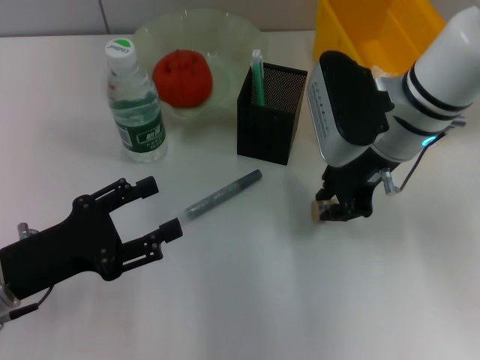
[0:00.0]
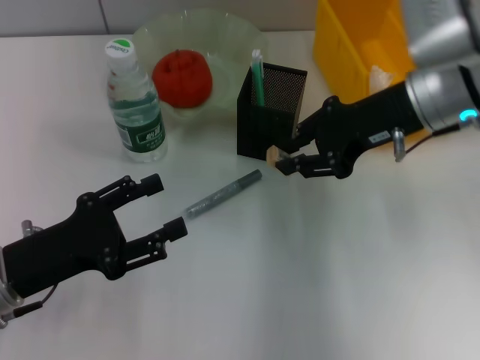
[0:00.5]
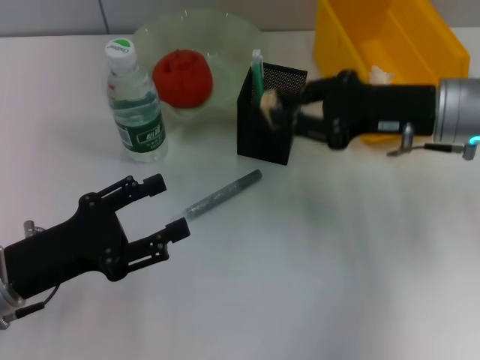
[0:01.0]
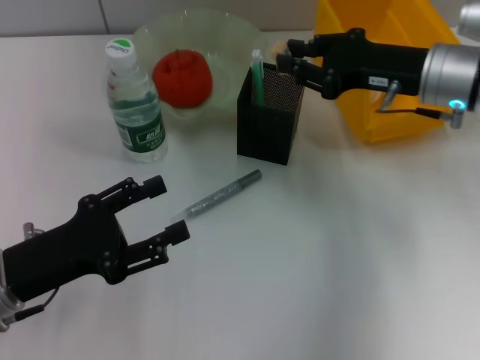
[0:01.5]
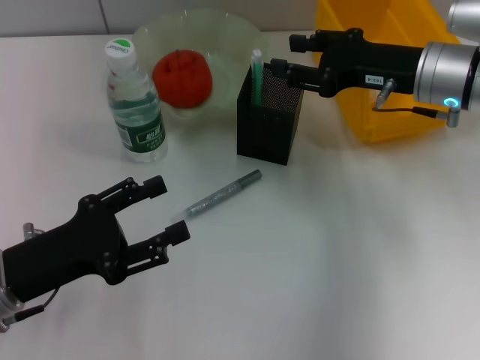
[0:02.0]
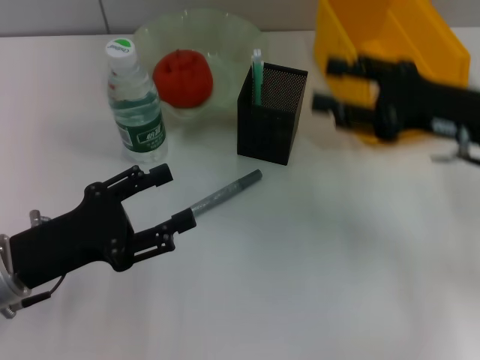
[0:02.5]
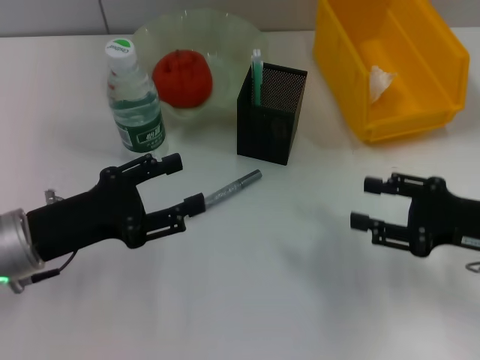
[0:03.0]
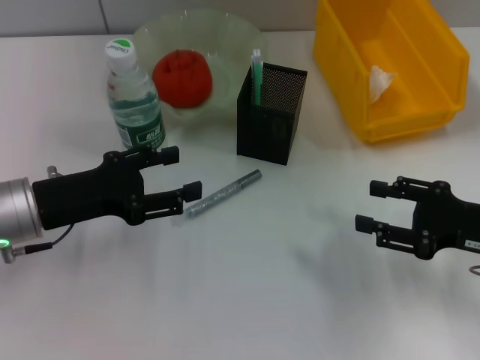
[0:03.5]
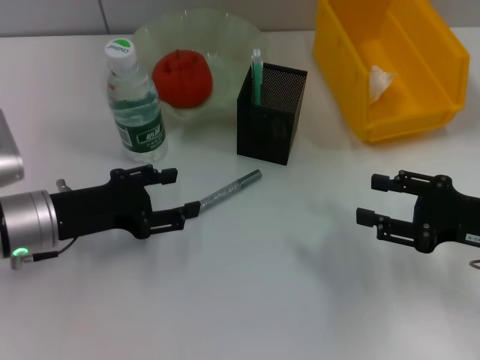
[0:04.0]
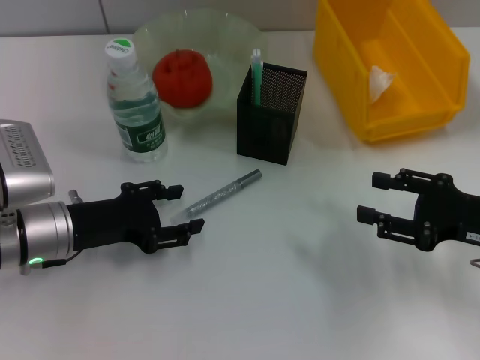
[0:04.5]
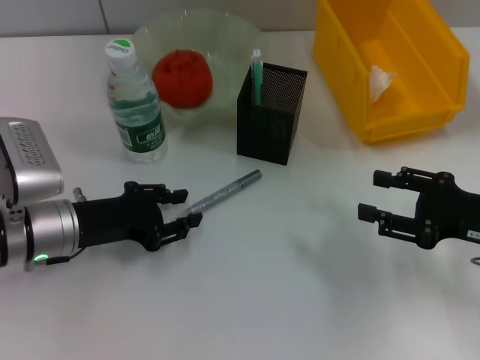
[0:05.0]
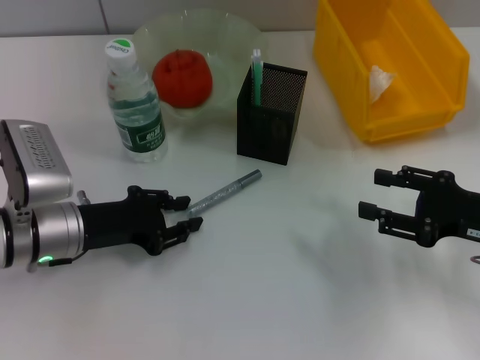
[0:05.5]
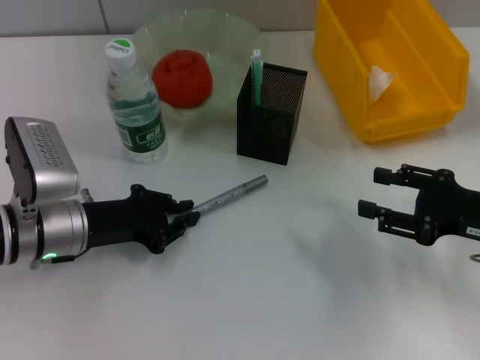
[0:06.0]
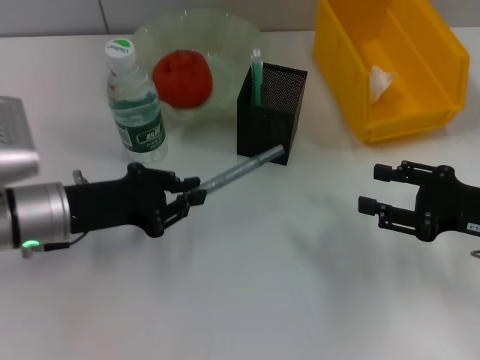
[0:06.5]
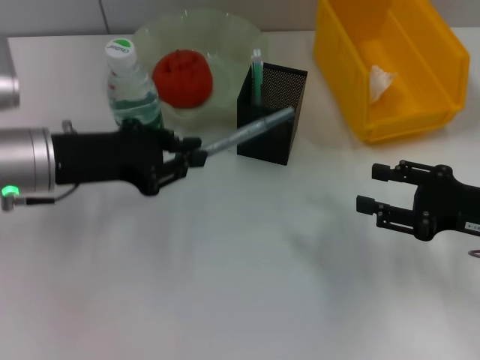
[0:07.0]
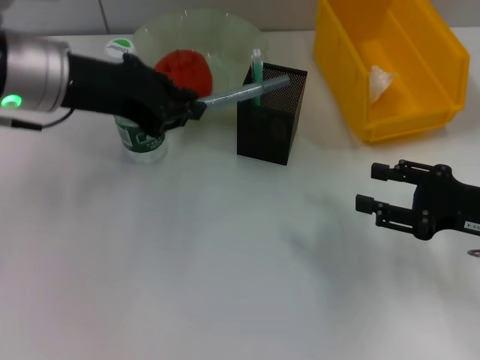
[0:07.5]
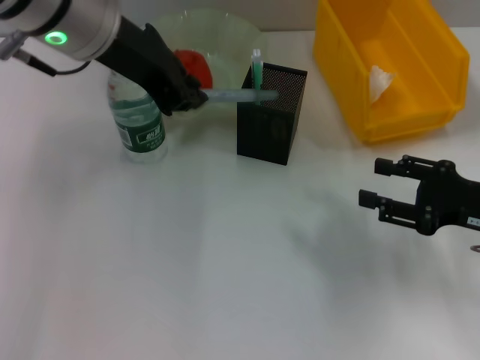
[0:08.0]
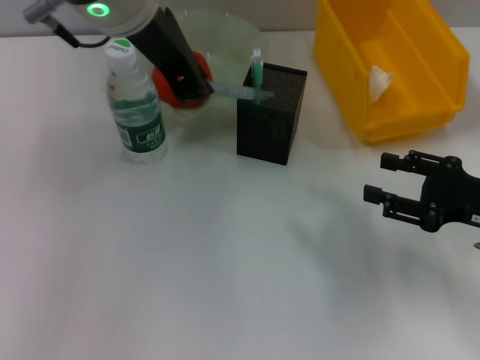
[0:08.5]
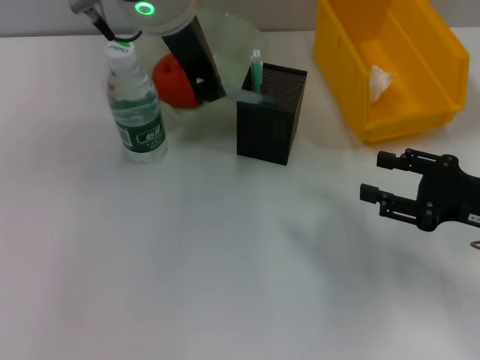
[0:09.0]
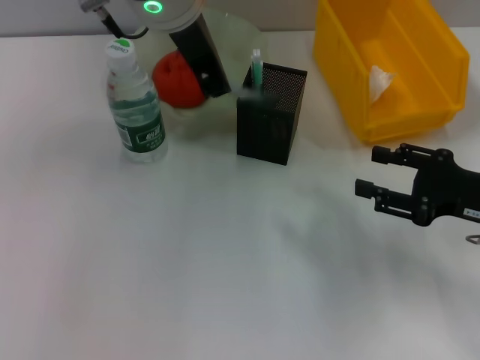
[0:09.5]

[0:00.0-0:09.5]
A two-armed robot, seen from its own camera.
Step, 0:00.0 to 0:02.0: Put the eraser into the pen holder with the right hand.
Step, 0:02.5 to 0:05.5: Grab the gray glue with the left hand.
0:00.0 to 0:02.0: The right gripper is displaced to the right by roughly 5 cm.
0:02.0 to 0:04.0: The right gripper heads backward, to the right and downward, covering approximately 20 cm, and opens up. The left gripper travels forward by approximately 10 cm.
0:04.0 to 0:05.5: The left gripper closes.
0:05.5 to 0:07.5: The left gripper goes about 15 cm upward.
0:07.5 to 0:09.5: The left gripper moves to the right and upward, some 15 cm.

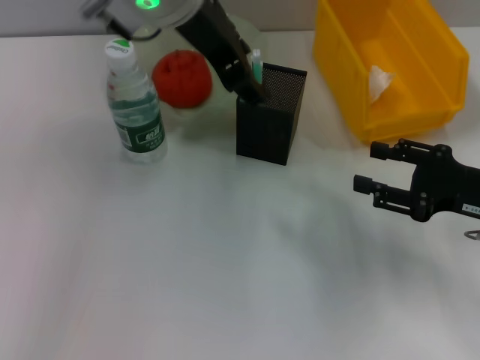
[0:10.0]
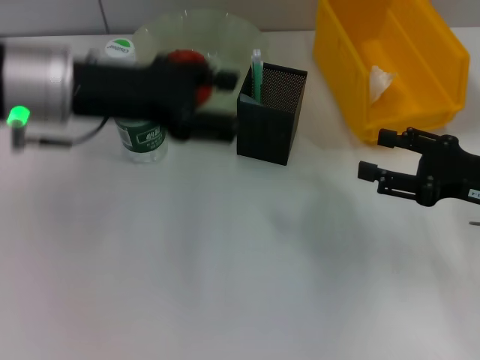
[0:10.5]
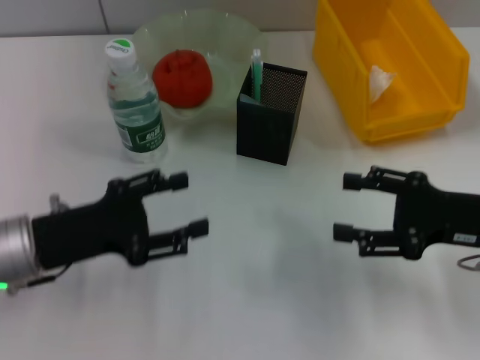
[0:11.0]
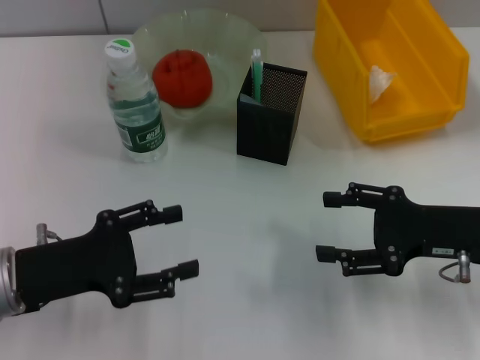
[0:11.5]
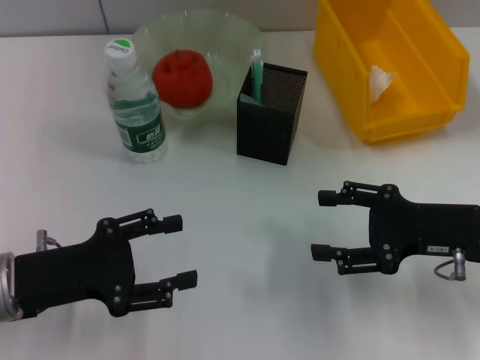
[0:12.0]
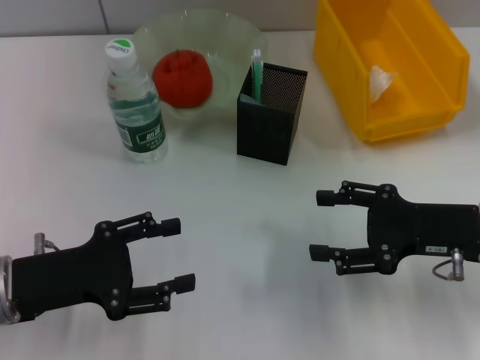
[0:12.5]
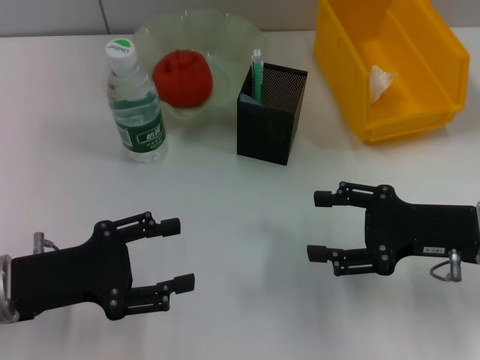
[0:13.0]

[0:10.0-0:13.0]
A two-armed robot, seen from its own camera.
0:10.0 to 0:11.5: The left gripper is displaced downward, to the left and backward by roughly 30 cm, and opens up.
0:11.5 to 0:13.0: Neither gripper changes place.

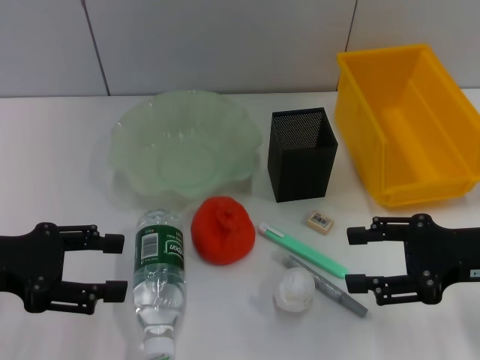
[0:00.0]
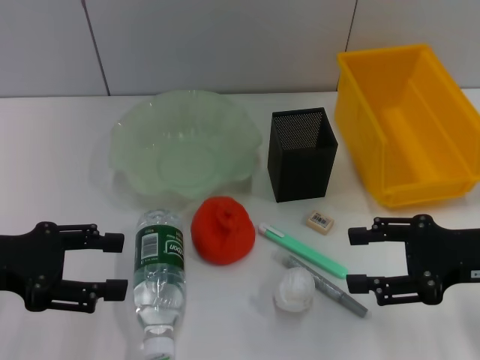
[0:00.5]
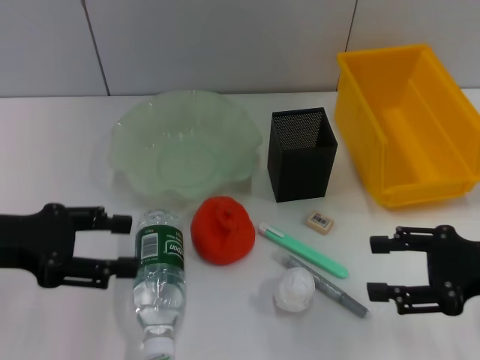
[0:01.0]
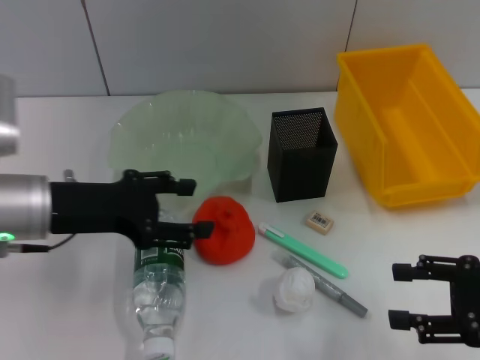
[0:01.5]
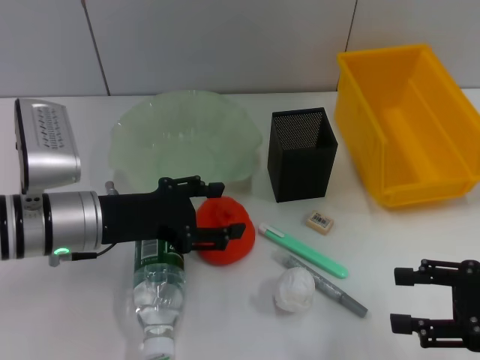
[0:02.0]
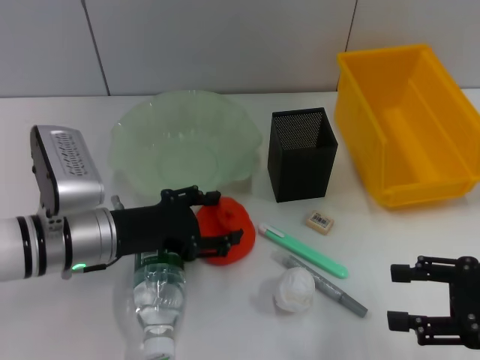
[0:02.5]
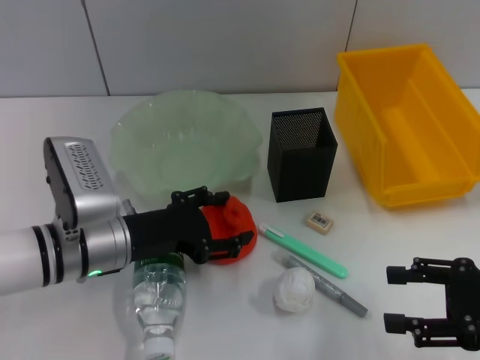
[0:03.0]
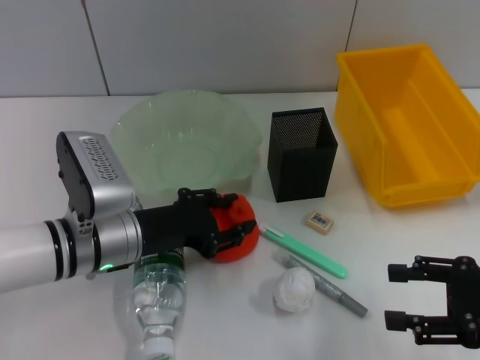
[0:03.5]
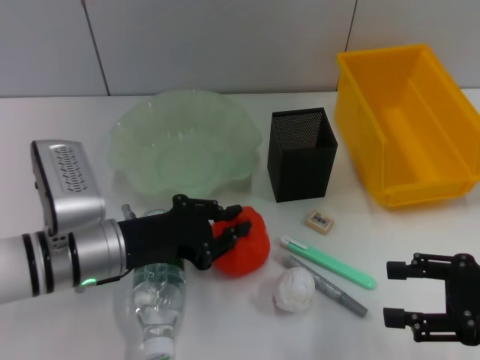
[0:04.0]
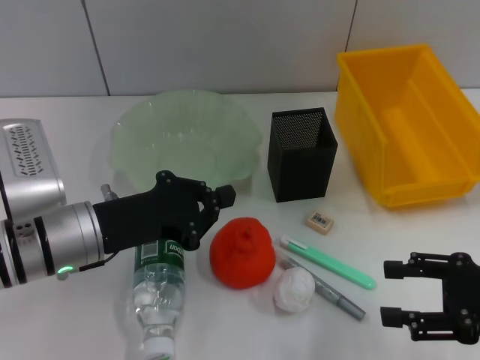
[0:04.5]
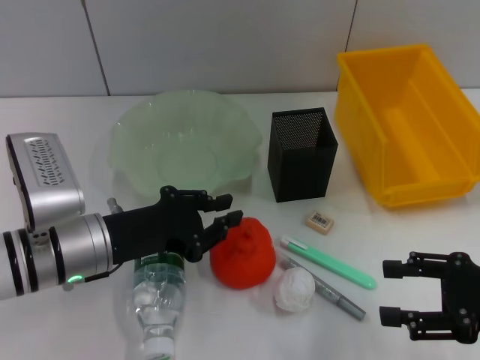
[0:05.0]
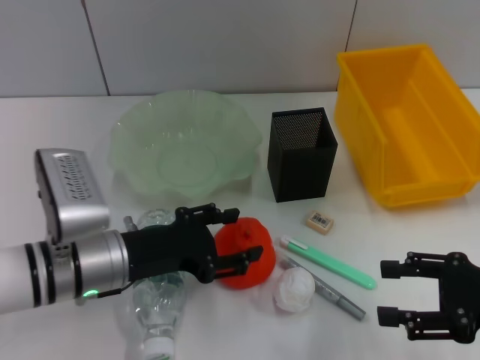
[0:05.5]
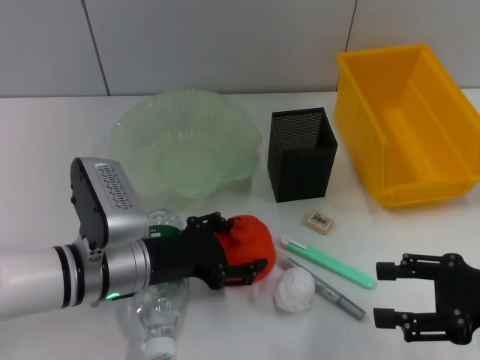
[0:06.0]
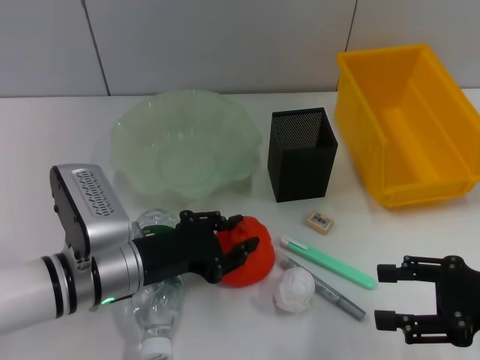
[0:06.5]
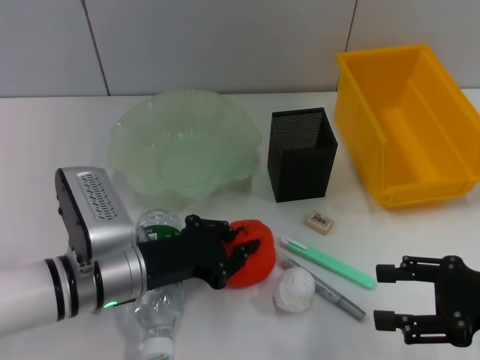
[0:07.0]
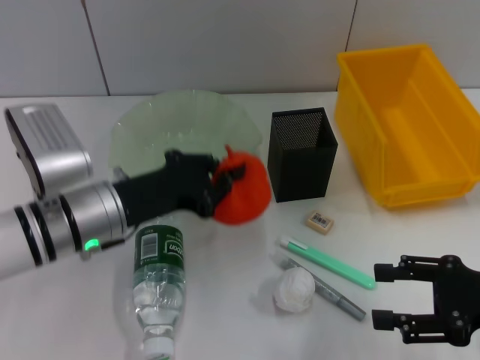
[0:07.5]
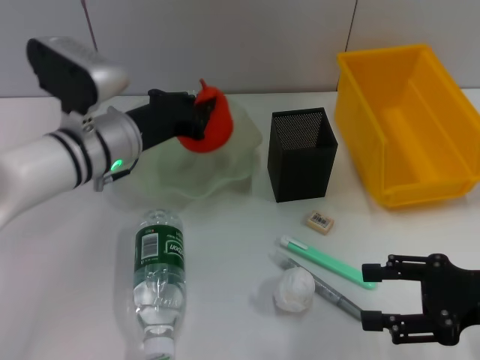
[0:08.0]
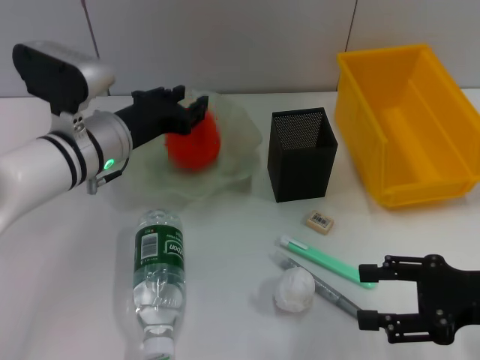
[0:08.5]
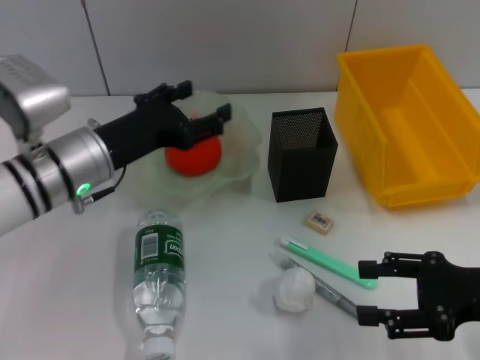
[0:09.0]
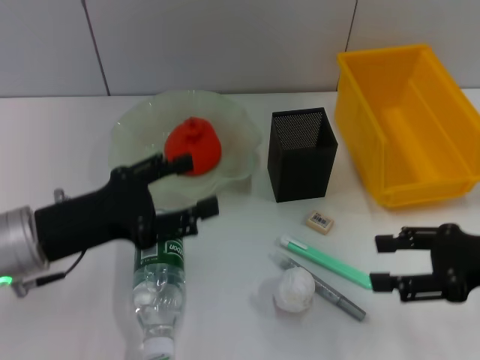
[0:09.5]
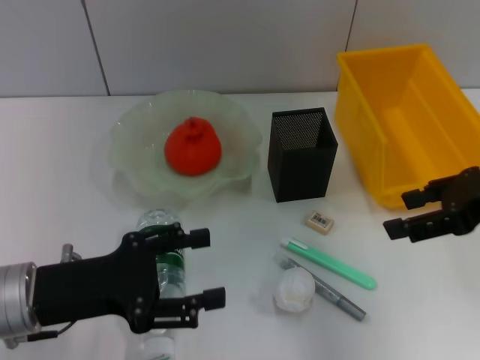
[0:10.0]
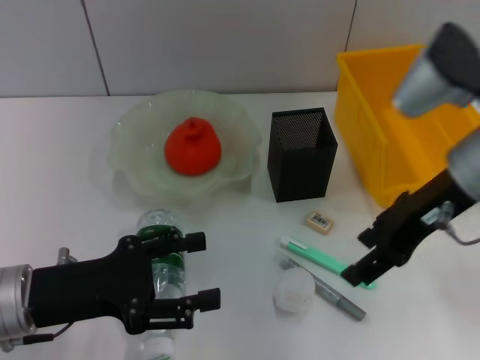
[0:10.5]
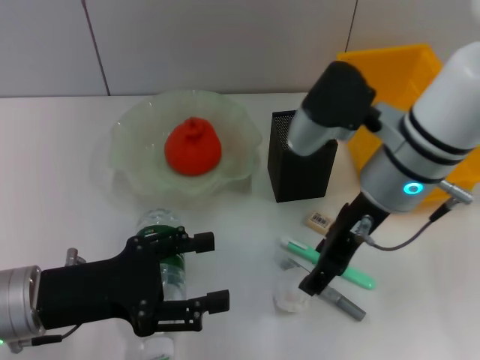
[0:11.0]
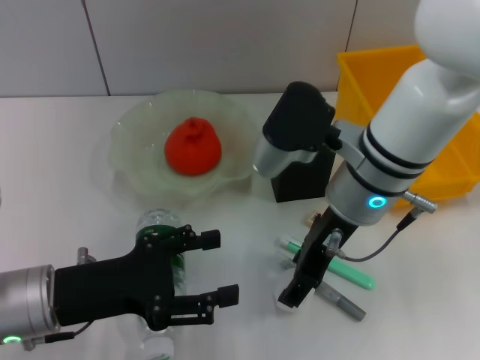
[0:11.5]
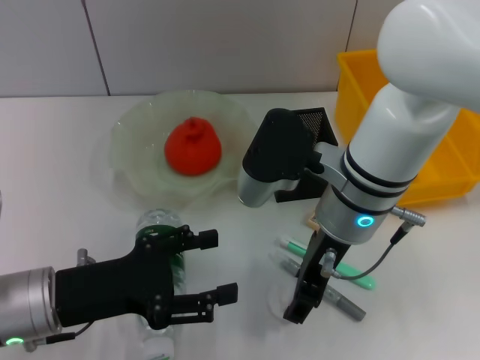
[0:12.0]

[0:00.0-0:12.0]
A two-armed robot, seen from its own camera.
Step, 0:00.0 to 0:07.0: Grab the orange with the left hand.
Step, 0:07.5 to 0:08.5: Place the orange into the fruit bowl with the left hand.
0:00.0 to 0:02.0: The right gripper moves approximately 5 cm. The left gripper is displaced to the right and forward by roughly 10 cm.
0:02.0 to 0:04.0: The left gripper closes.
0:04.0 to 0:06.0: The left gripper opens up.
0:06.0 to 0:08.0: The left gripper shifts about 10 cm forward and upward, and closes up.
0:08.0 to 0:10.0: The left gripper goes about 15 cm backward and to the left, and opens its fingers. Meanwhile the right gripper goes roughly 15 cm upward and forward.
0:10.0 to 0:12.0: The right gripper shifts about 20 cm to the left.

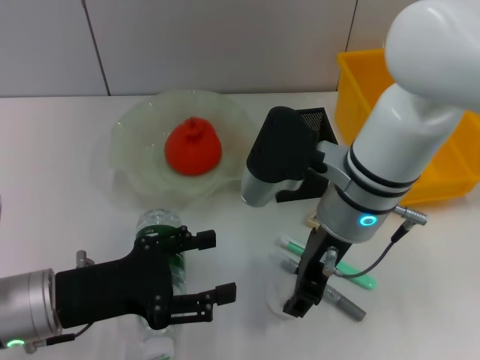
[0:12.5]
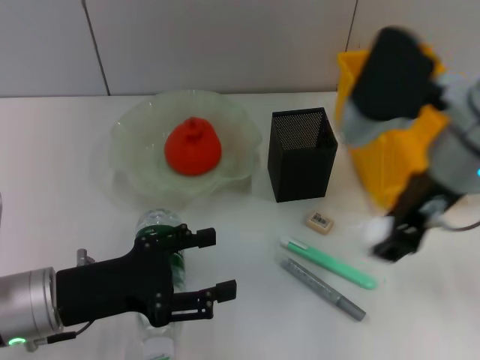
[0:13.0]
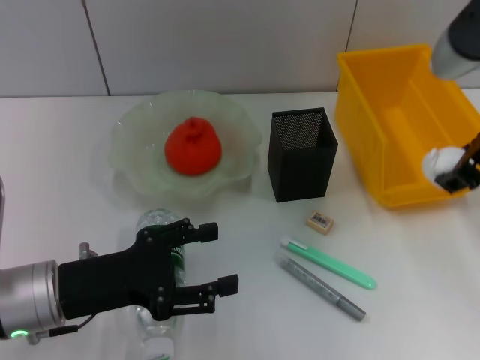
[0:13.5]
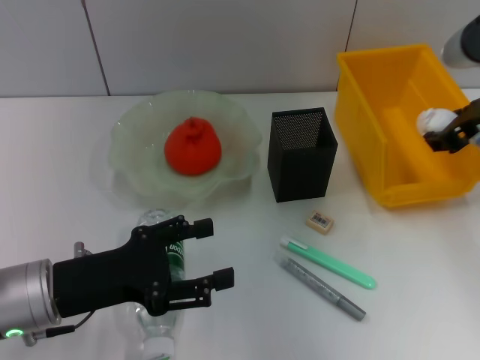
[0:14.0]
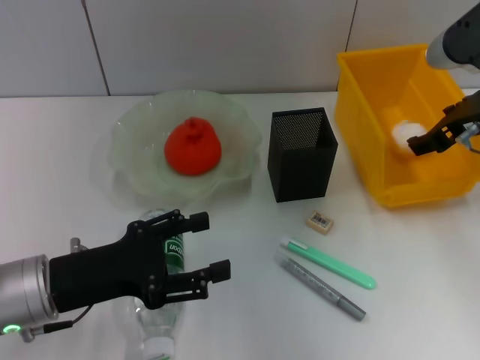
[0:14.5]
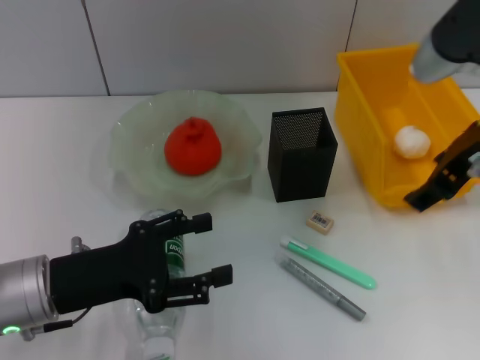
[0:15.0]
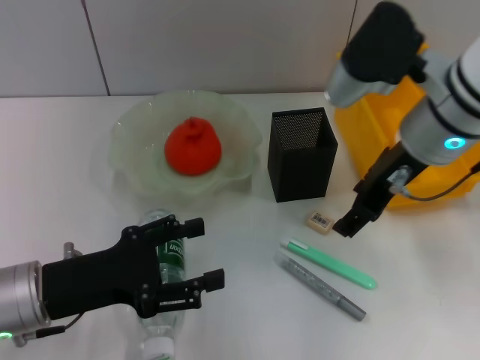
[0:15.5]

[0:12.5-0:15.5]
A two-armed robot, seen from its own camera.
Step, 0:12.5 to 0:14.5: Place the paper ball into the trash can with the right hand.
0:12.5 to 0:14.0: The right gripper heads to the right, covering roughly 15 cm.
0:14.0 to 0:15.5: The right gripper travels to the left by about 10 cm.
